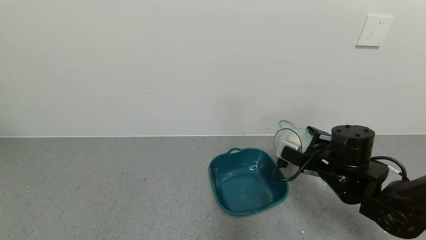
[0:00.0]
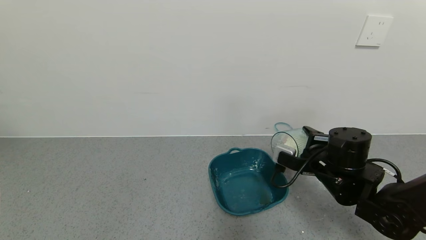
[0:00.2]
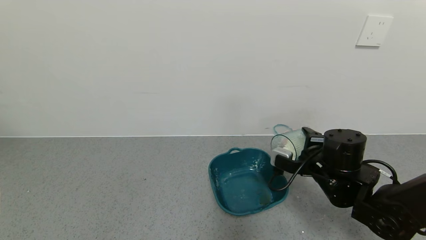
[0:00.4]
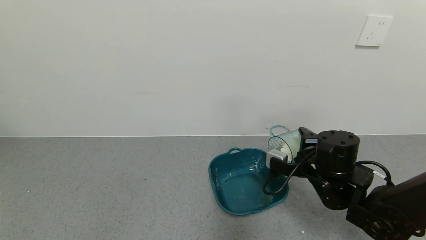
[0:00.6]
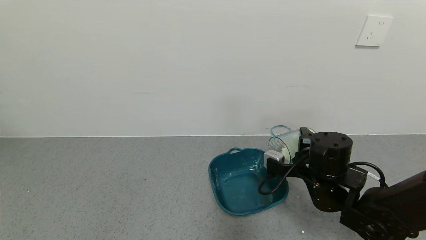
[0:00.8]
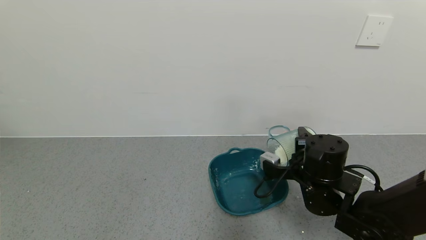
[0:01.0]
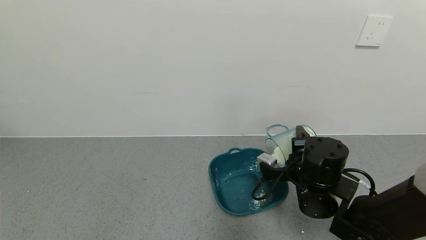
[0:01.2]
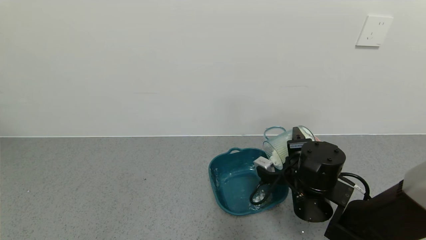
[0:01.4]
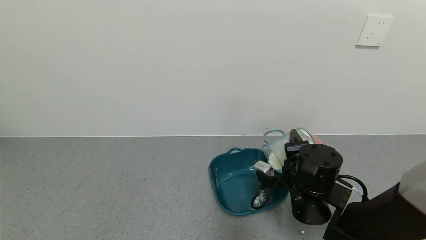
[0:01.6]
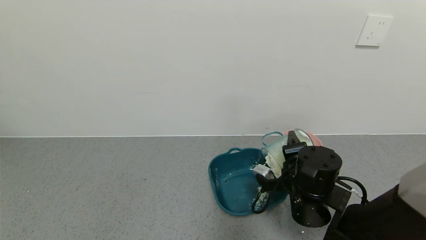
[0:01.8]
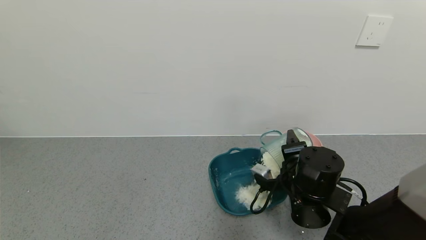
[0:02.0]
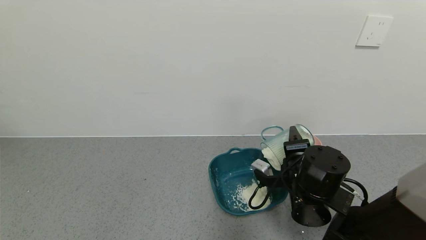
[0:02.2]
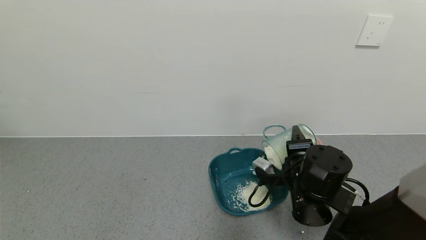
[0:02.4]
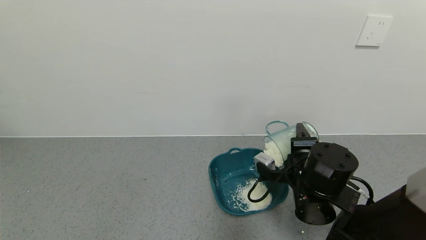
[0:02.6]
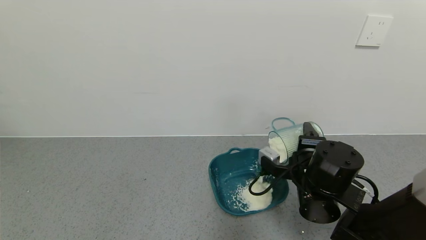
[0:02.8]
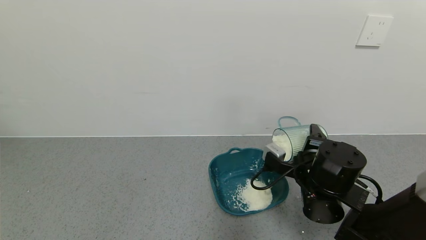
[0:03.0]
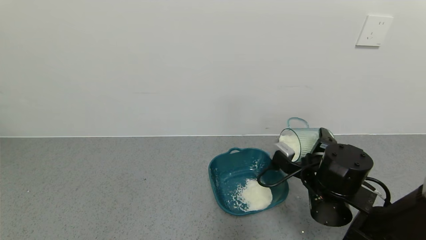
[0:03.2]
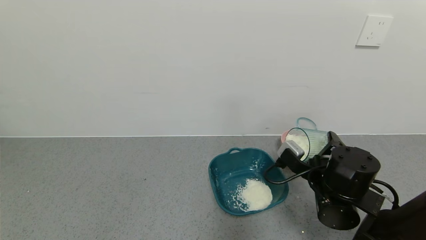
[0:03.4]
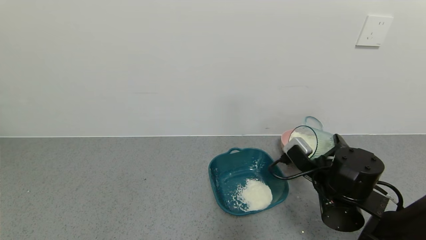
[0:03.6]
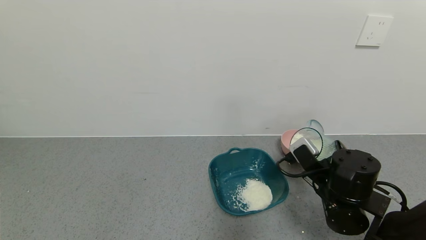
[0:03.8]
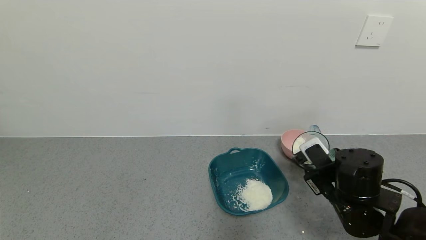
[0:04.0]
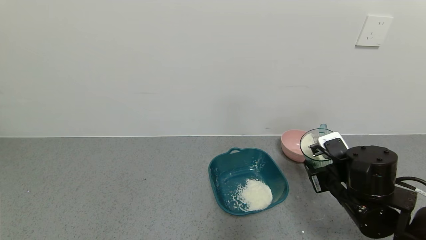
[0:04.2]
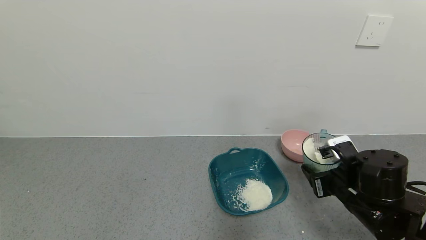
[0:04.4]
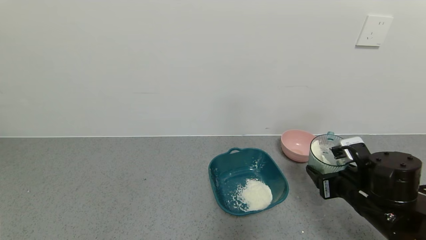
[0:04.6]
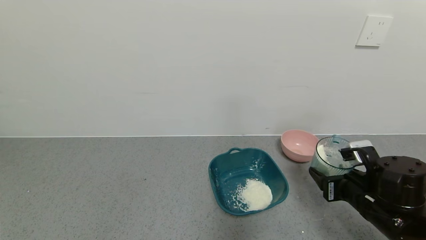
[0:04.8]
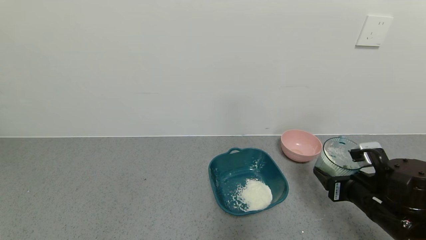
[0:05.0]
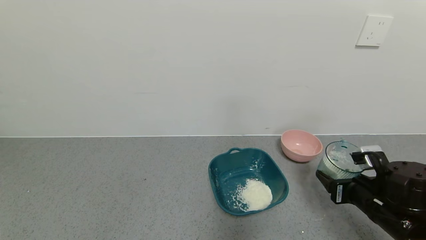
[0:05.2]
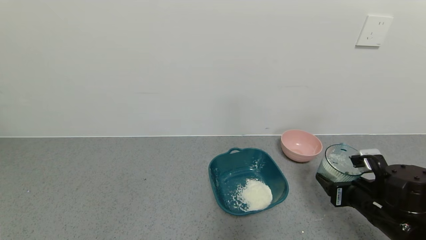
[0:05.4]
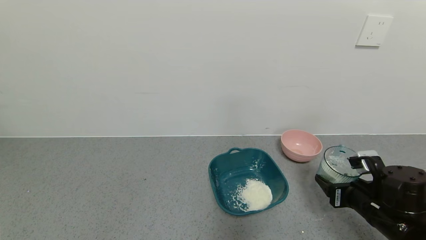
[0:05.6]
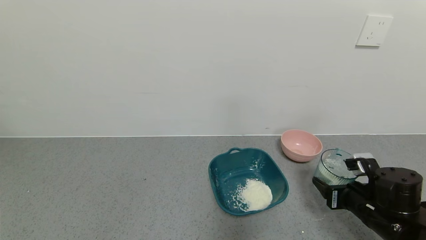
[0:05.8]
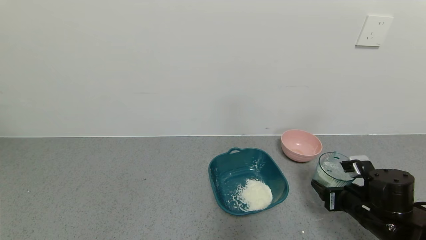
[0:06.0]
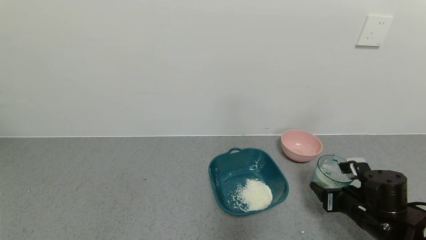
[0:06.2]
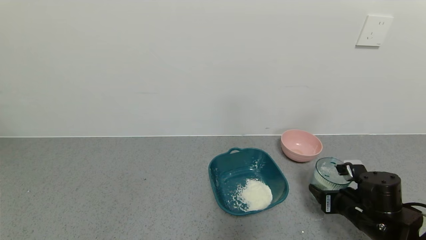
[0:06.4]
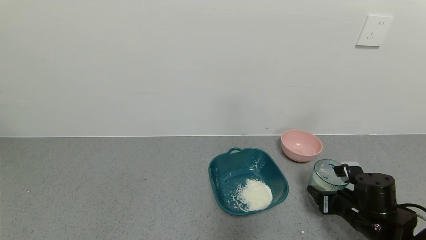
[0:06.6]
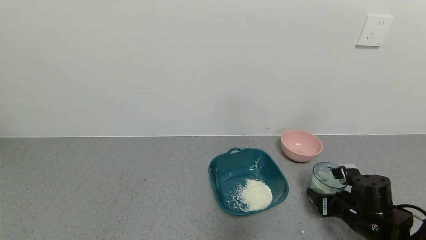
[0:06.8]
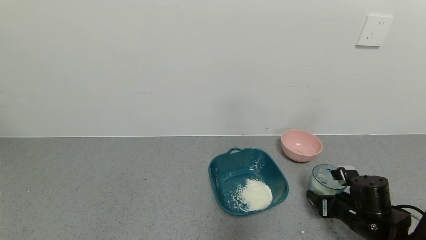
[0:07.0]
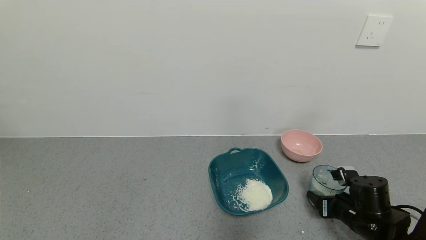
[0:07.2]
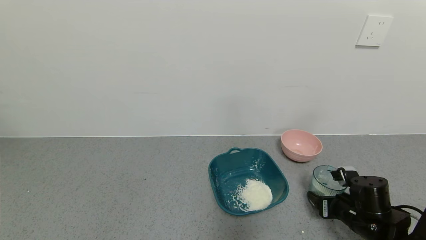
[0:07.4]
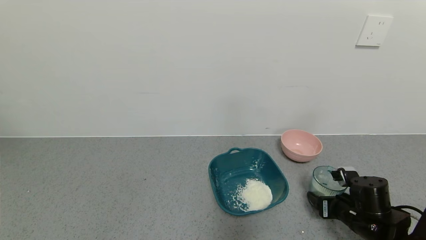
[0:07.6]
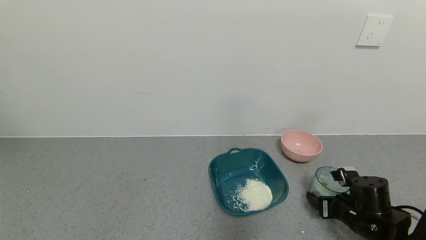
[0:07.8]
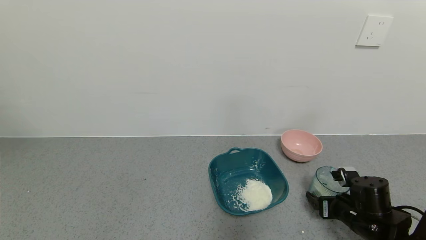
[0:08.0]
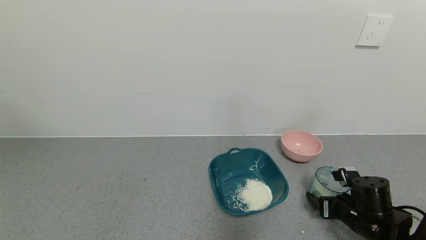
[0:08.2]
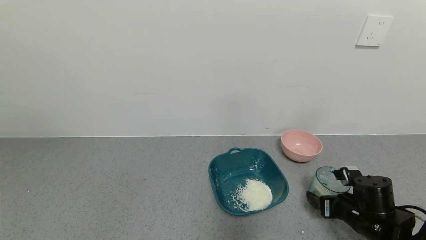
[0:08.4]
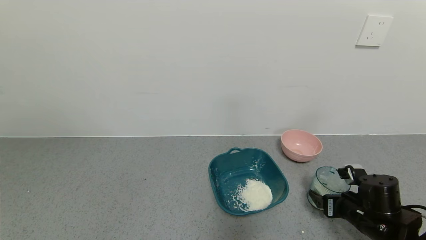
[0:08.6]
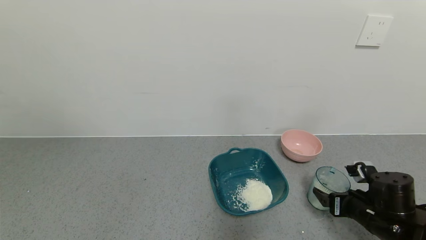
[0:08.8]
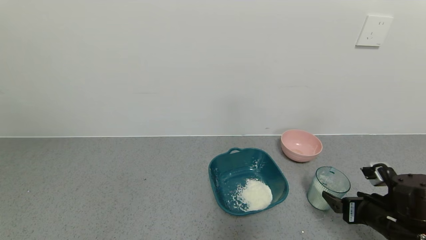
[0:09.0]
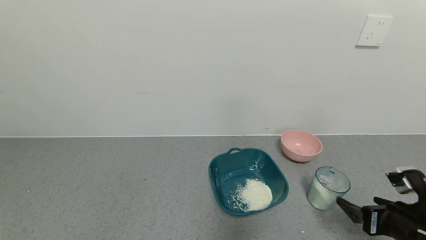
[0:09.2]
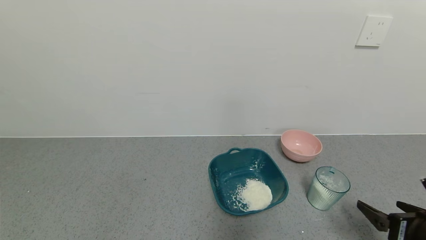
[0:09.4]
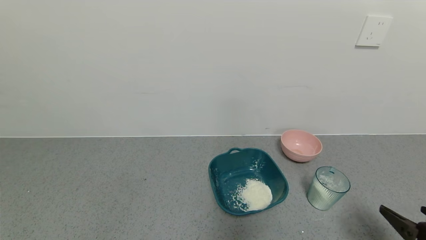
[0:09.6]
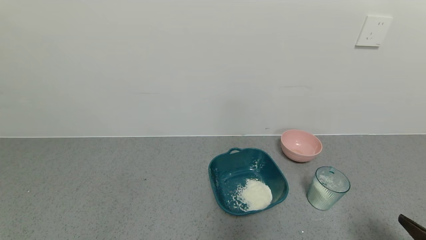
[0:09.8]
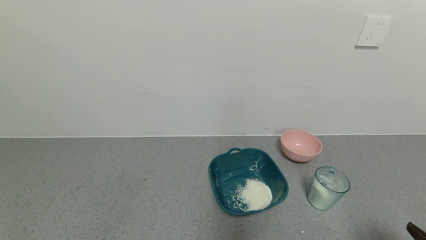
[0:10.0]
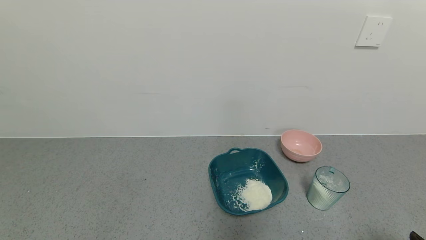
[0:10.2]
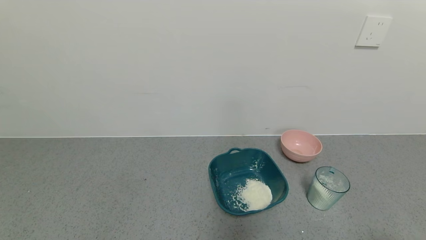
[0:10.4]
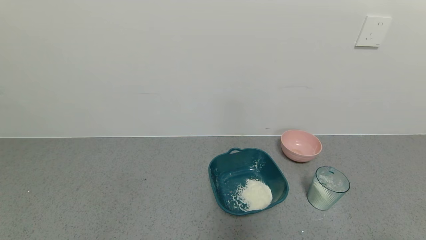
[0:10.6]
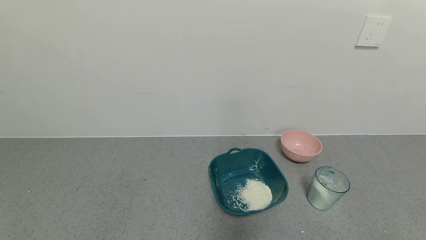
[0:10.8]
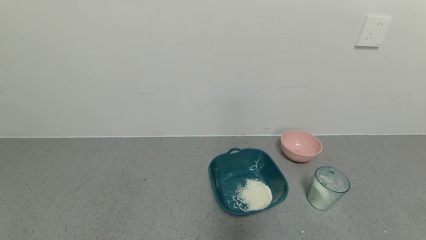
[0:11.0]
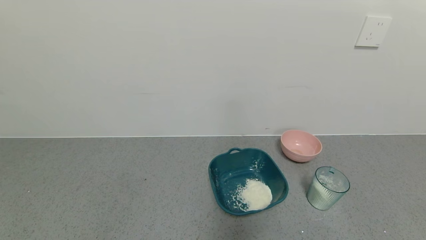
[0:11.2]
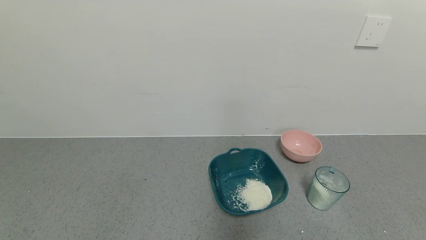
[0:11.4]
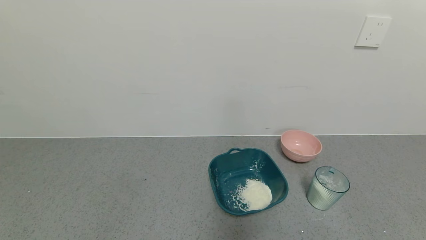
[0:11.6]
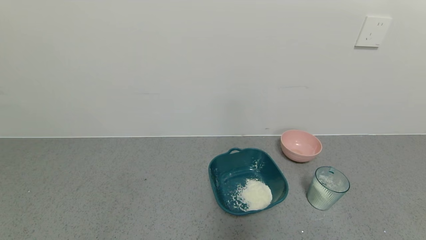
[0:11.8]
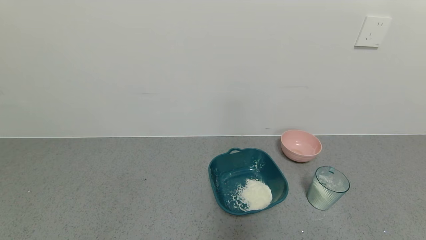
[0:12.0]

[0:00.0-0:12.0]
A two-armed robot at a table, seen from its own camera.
Task of the whole recording: use a gripper to pick up the cup and pour the powder into a bowl or tray.
Step, 0:00.0 to 0:02.6: Pour the milk powder into the blue basin with right gripper.
Step, 0:02.8 to 0:08.0: Place blue cup with milk powder on the table with right gripper.
0:00.0 to 0:01.6: The right gripper heads to the left, covering some 5 cm.
0:03.0 to 0:04.4: The right gripper heads to the right, covering roughly 5 cm.
0:04.4 to 0:06.0: The right gripper changes place by roughly 5 cm.
0:06.0 to 0:07.6: The grippers move only a little.
0:07.6 to 0:09.0: The right gripper moves upward, approximately 5 cm, and opens.
0:09.0 to 0:10.4: The right gripper heads backward, covering roughly 15 cm.
